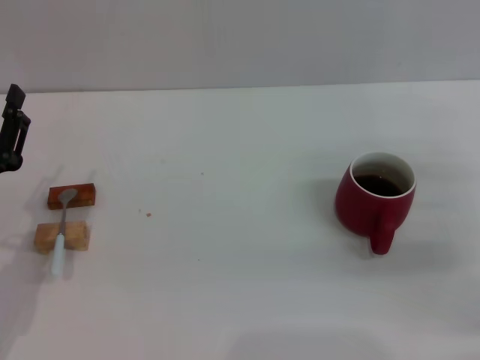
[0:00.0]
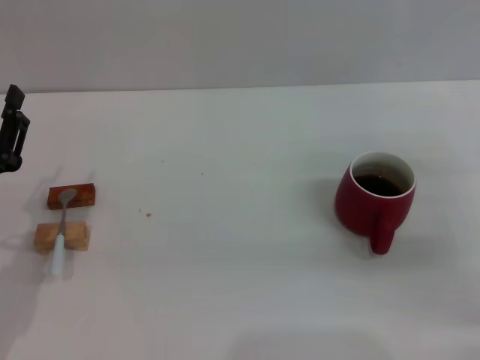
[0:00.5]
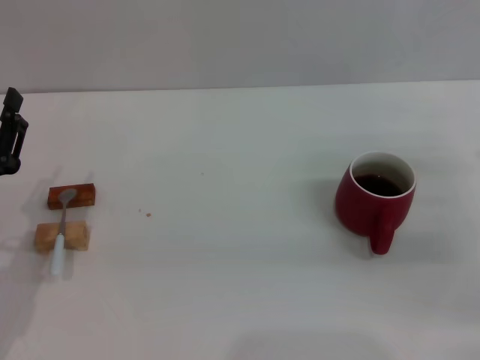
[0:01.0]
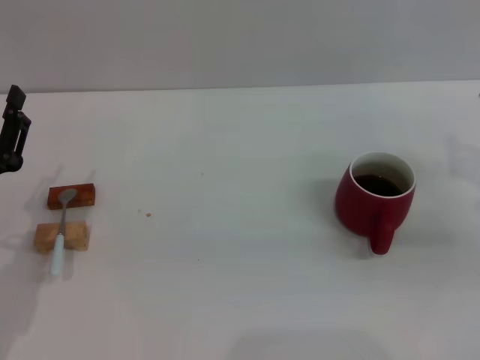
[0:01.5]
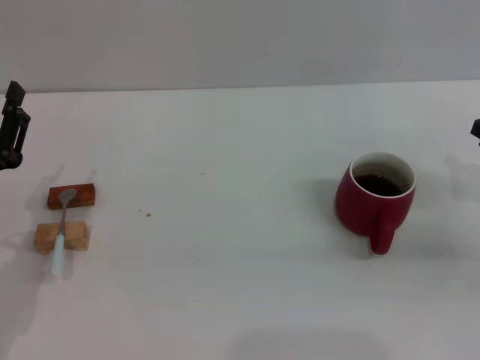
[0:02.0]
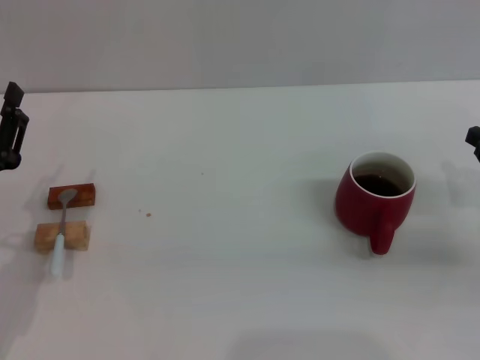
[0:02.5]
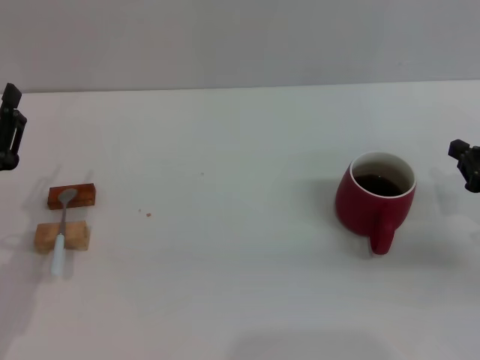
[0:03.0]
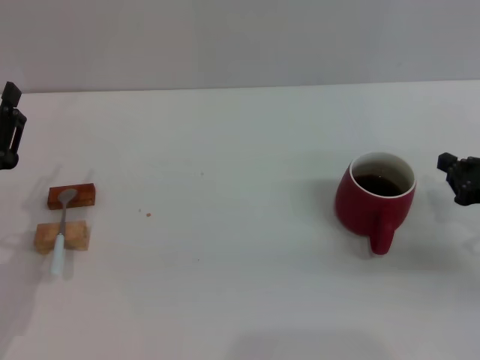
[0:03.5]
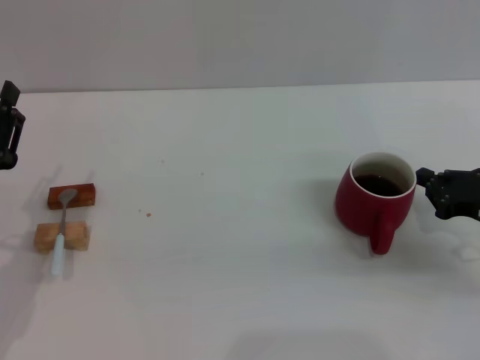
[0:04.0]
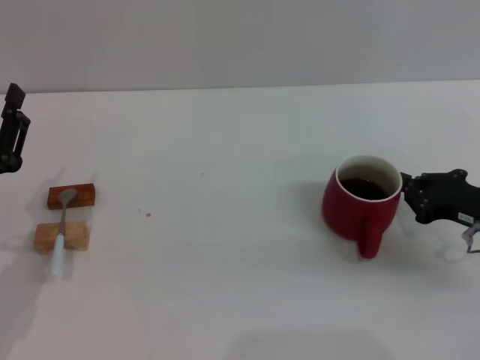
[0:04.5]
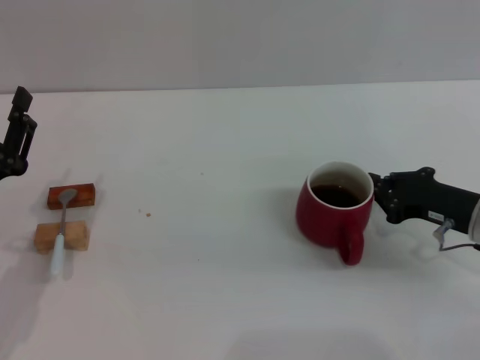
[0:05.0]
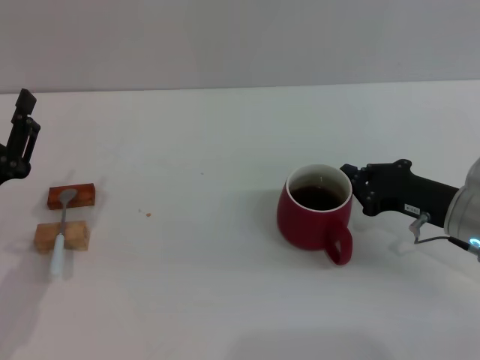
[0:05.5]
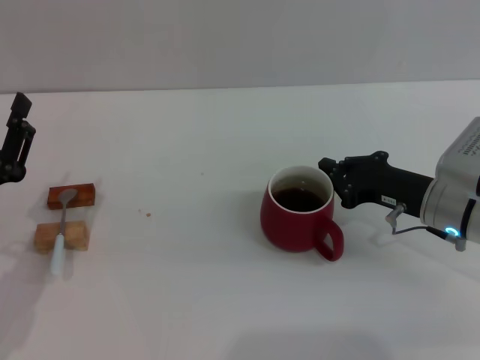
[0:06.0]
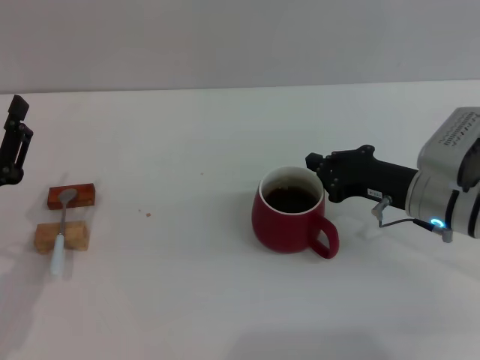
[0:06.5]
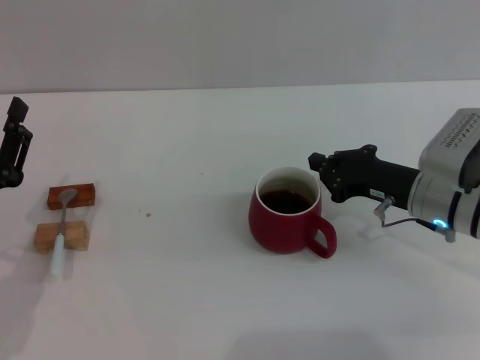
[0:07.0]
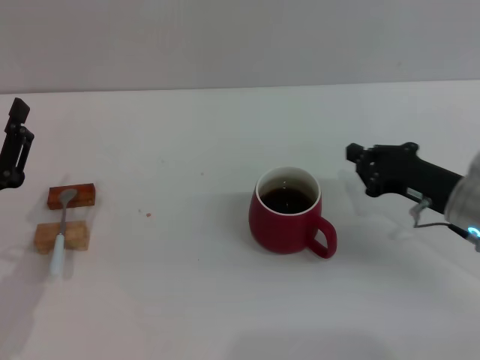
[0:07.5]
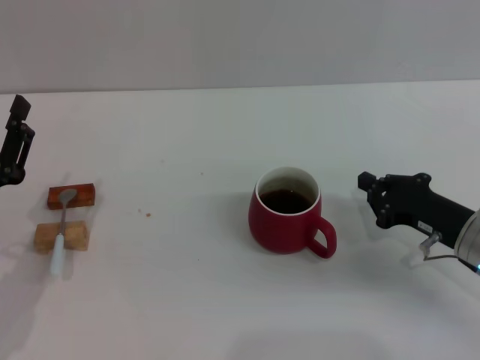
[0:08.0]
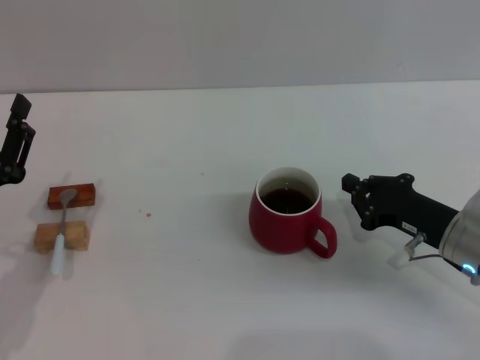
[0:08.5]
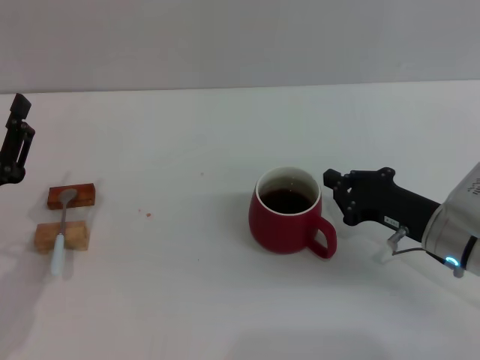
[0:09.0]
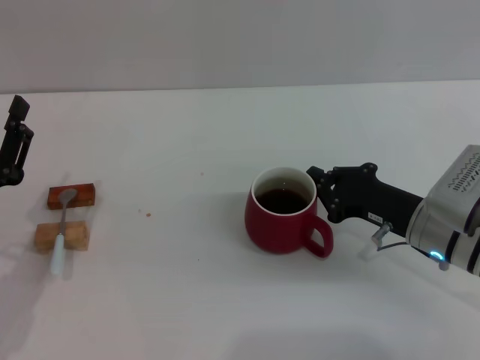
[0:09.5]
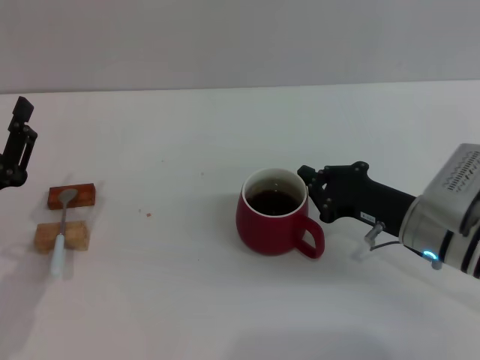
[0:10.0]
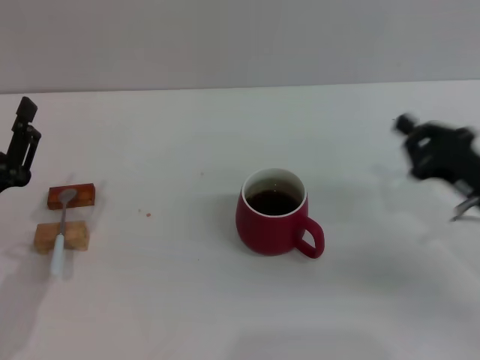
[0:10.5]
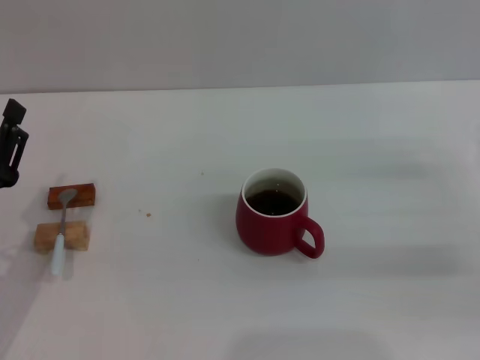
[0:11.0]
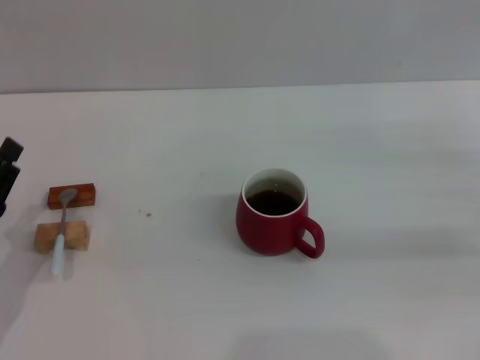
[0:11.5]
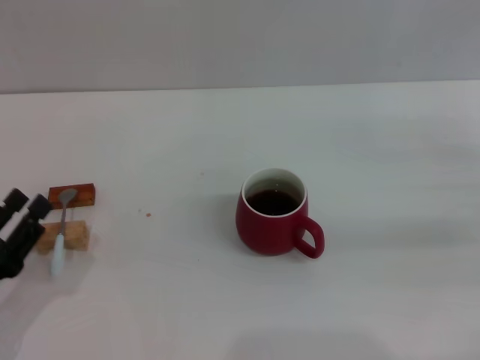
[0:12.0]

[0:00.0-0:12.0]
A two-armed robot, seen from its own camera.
Task of the whole recording: Move the red cup to the center, lift the blue spoon, stir it three times in the cup, and put the spoon into the cup.
Step, 0:00.0 to 0:10.0: Move the cup with coffee to the center of view with the right gripper.
0:02.0 to 0:04.0: The grippers make only small movements.
0:04.0 to 0:06.0: The right gripper shifts some 10 cm to the left.
0:06.0 to 0:08.0: The right gripper moves some 5 cm.
0:08.0 to 0:10.0: The right gripper shifts approximately 5 cm to the left.
0:10.0 to 0:12.0: The left gripper heads backward, covering about 5 cm. The right gripper heads to the right, covering roughly 20 cm, and opens its fingers.

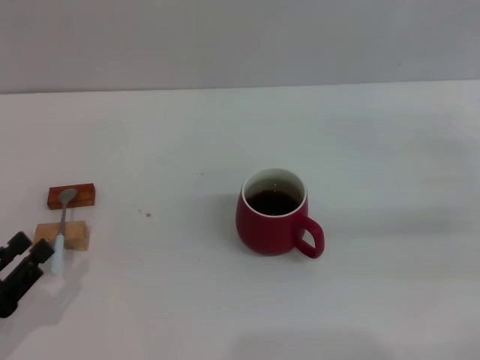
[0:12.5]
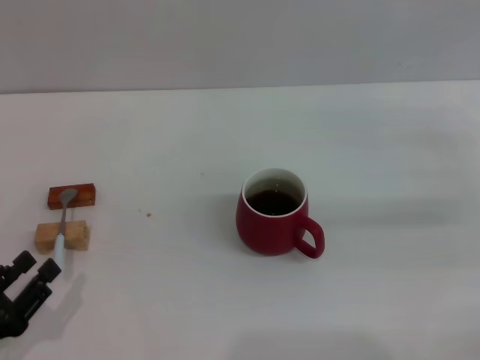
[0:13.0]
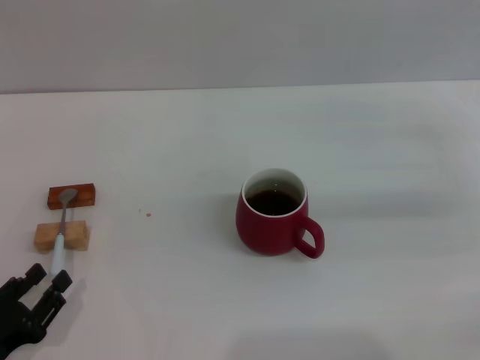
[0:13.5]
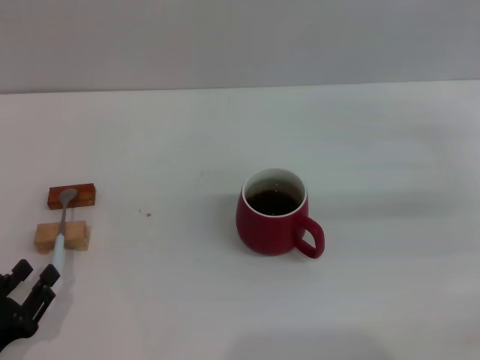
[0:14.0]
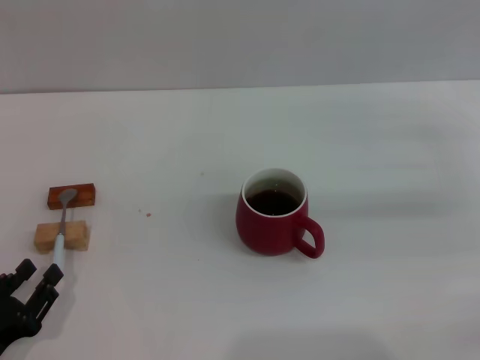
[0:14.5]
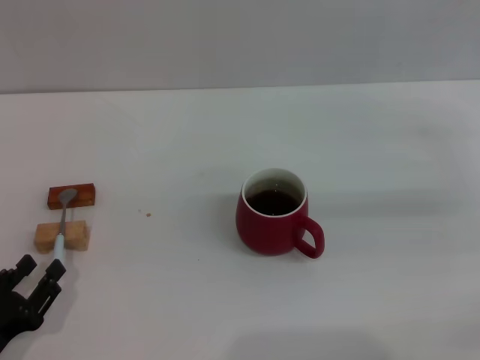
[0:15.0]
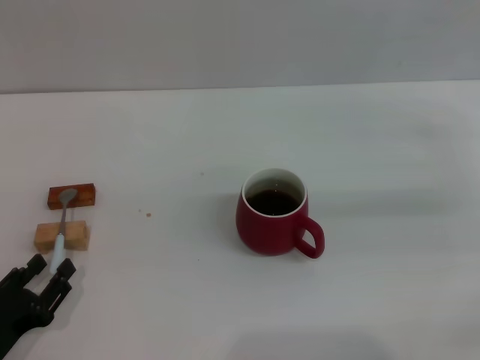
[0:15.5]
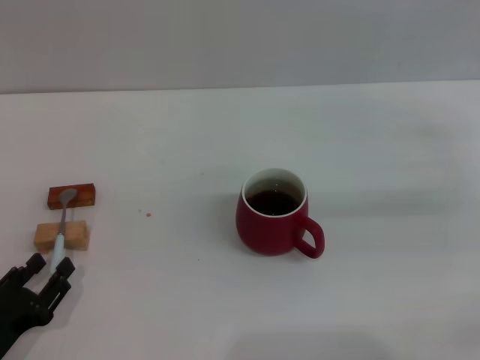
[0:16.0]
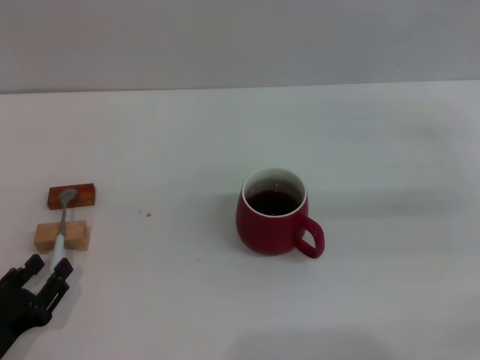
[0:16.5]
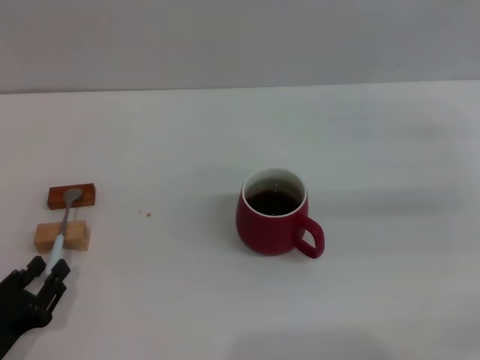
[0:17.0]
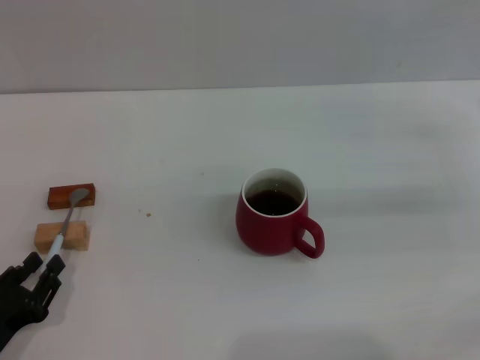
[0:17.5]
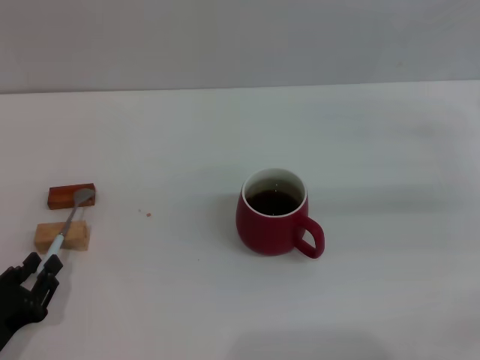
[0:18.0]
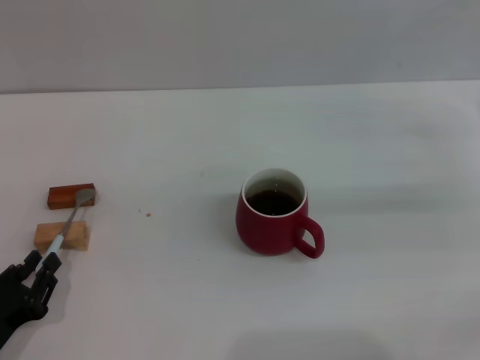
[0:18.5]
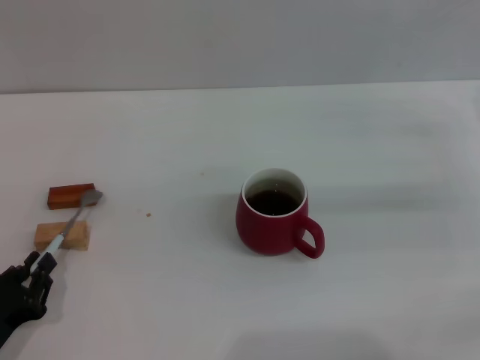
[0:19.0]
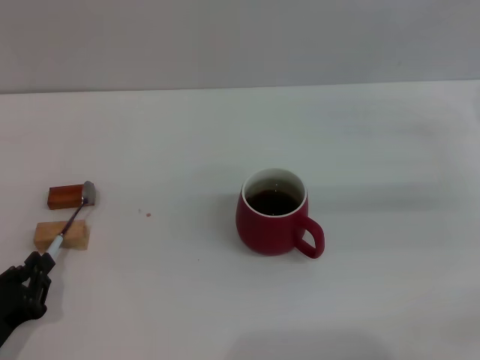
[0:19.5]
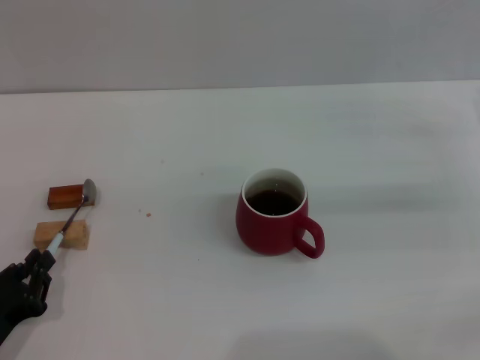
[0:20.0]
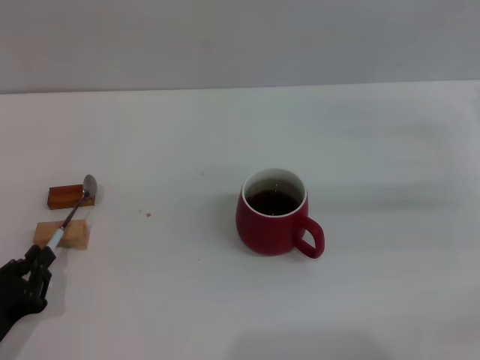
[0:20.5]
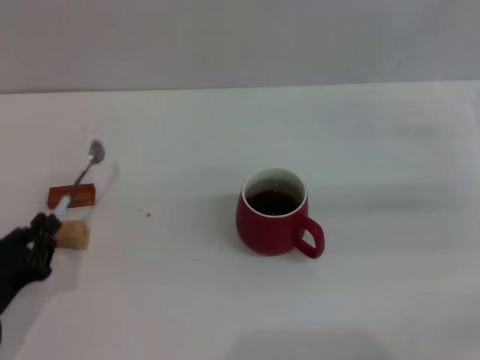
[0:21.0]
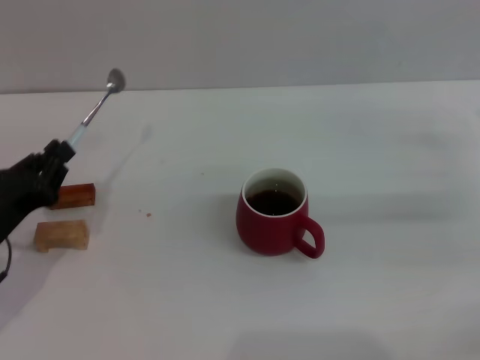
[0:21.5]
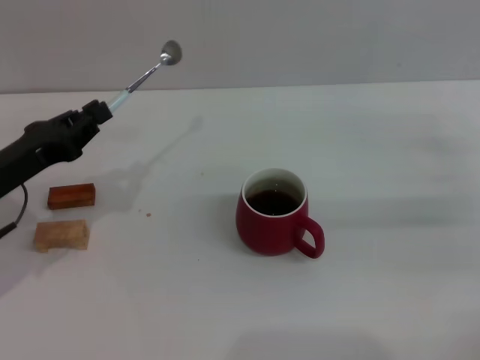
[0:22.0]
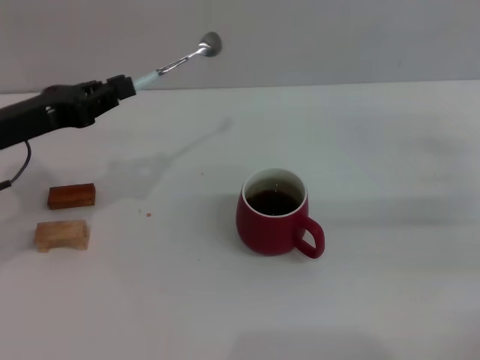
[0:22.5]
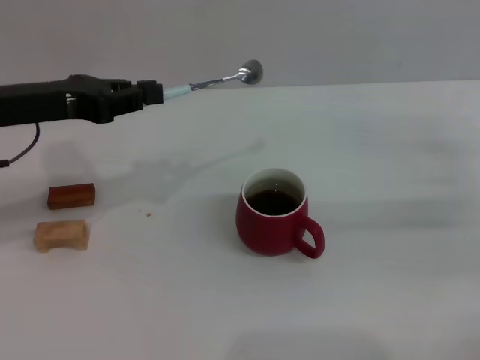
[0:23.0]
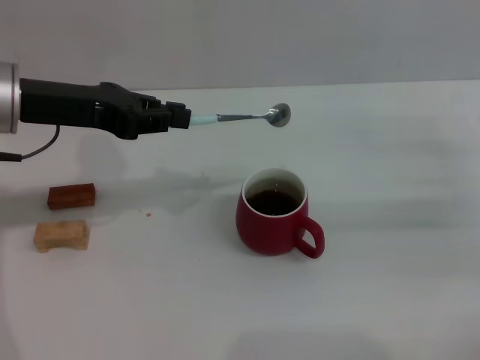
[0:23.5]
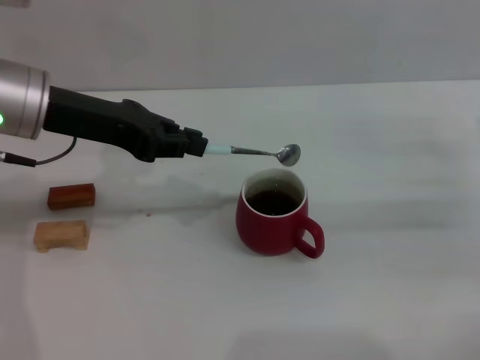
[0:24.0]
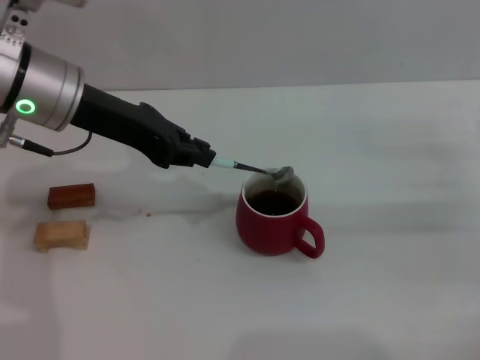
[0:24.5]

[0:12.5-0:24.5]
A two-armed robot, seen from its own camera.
Task of the whole recording: Move the red cup to the center, lift the blue spoon, stir it three times in the cup, and put the spoon into the cup.
Step, 0:12.5 to 0:21.0: Pick up the spoon with the left gripper.
0:12.5 to 0:16.5: The grippers make only small movements.
0:16.5 to 0:18.5: The left gripper closes its fingers.
0:18.5 to 0:20.5: The left gripper closes.
0:20.5 to 0:22.5: The left gripper shifts about 25 cm forward and upward.
0:22.5 to 0:24.5: The left gripper travels to the right and upward by approximately 10 cm.

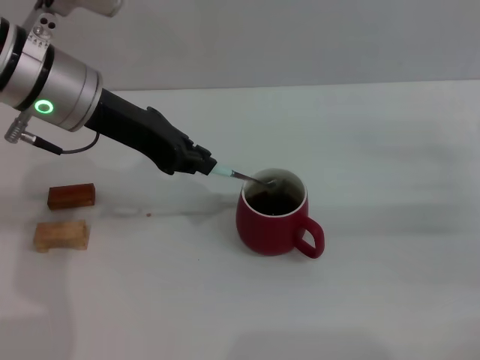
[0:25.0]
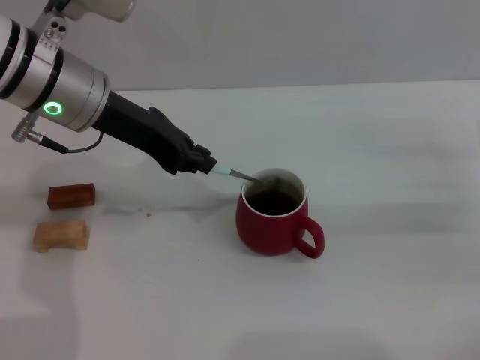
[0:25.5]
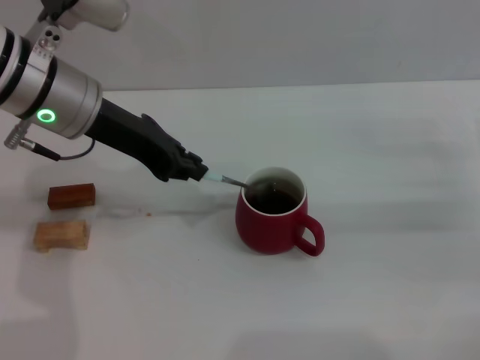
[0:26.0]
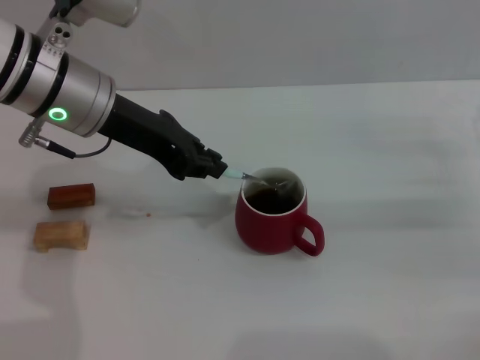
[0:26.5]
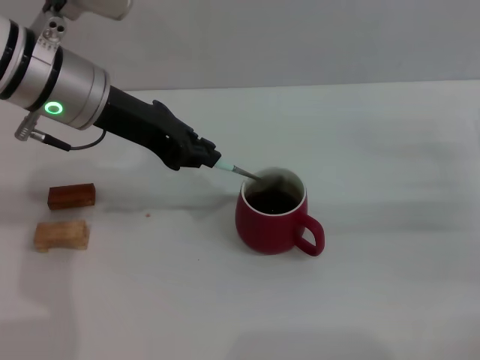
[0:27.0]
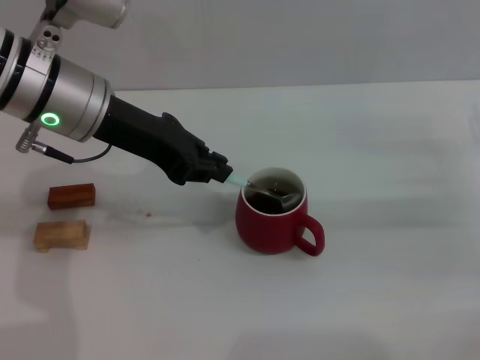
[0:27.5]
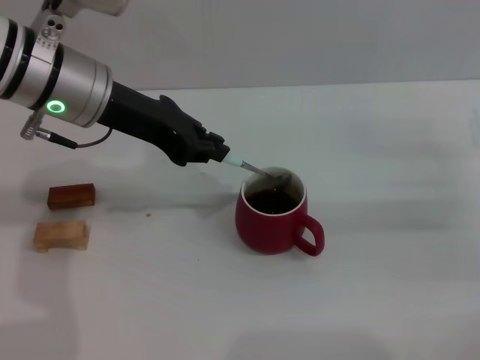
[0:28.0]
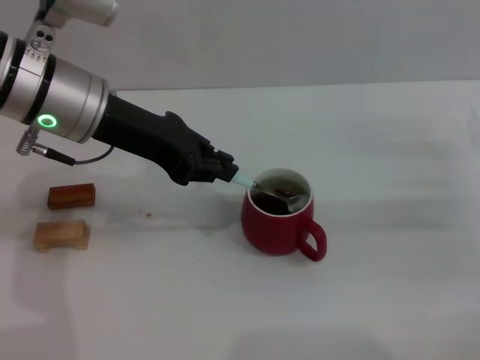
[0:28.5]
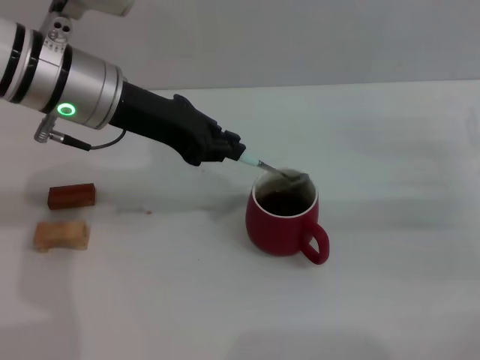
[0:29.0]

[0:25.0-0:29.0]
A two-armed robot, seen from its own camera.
Task of the whole recording: Move the red cup to the center, lift the blue spoon, stir it three times in the cup, and put the spoon into the cup.
0:25.0 to 0:27.0: Both grippers stay about where they are.
0:27.0 to 0:29.0: The grippers stay close to where they were, moving slightly.
